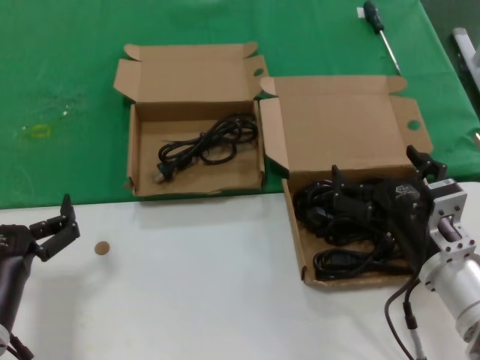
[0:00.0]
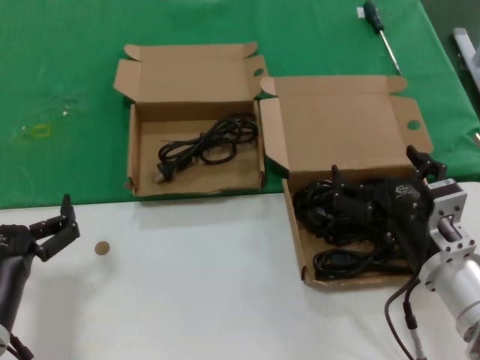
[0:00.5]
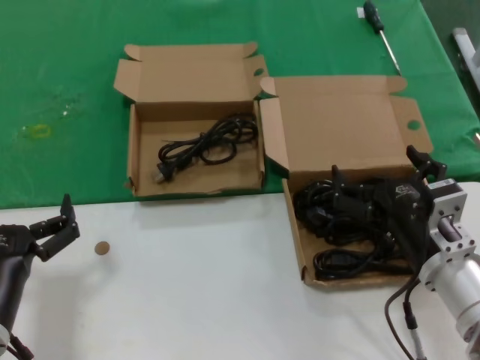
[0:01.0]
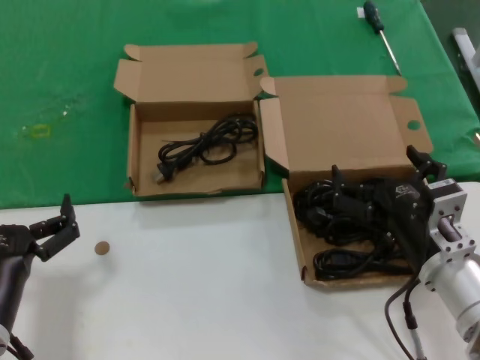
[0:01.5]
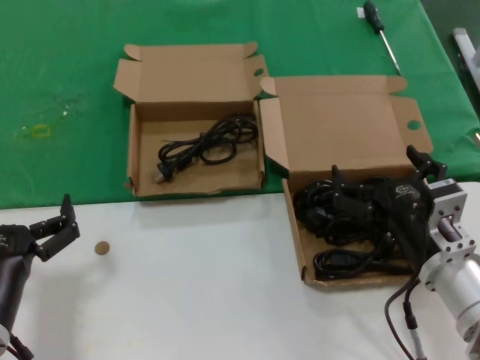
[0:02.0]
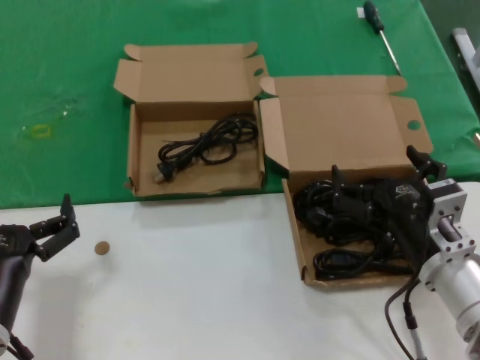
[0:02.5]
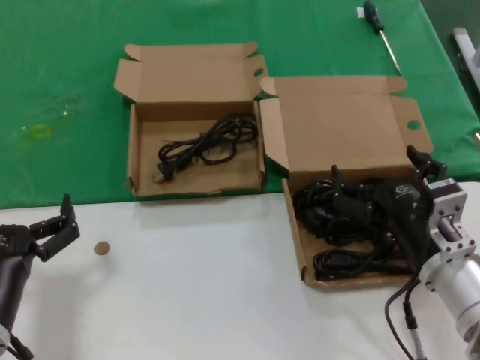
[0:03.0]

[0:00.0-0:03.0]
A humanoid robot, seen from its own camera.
Task of the whole recording: take the parts from the box containing them and put them into an empty box.
0:00.0 to 0:03.0: Neither hand changes place.

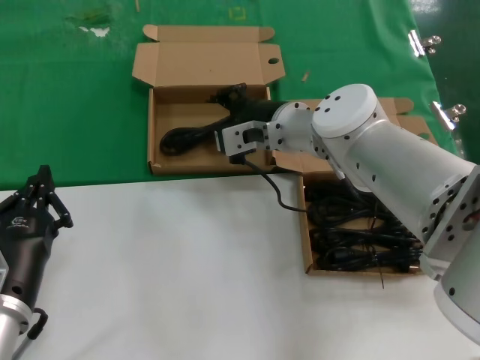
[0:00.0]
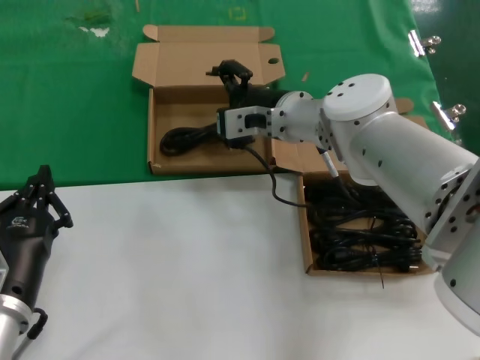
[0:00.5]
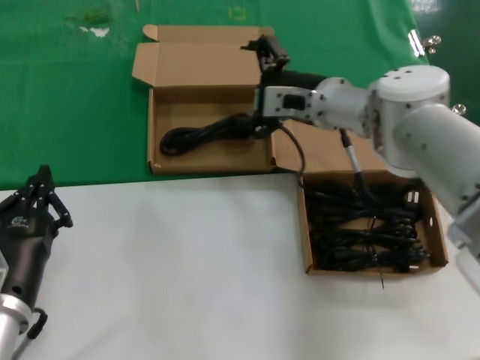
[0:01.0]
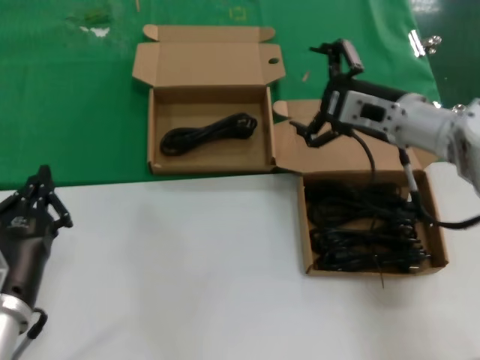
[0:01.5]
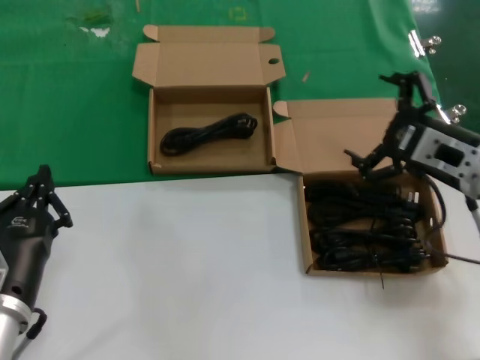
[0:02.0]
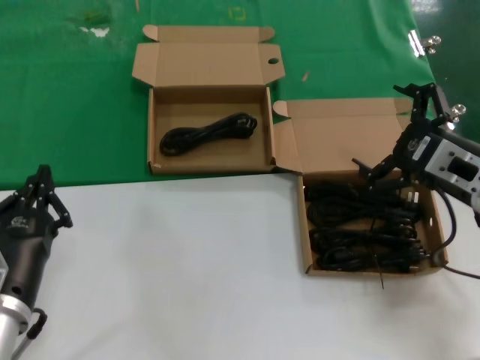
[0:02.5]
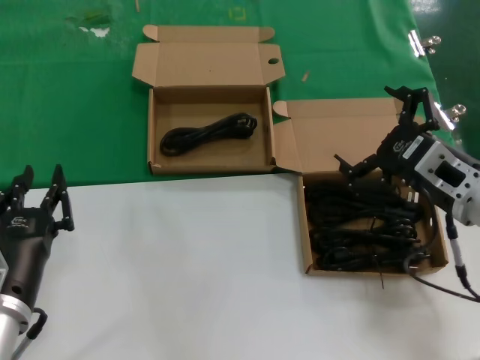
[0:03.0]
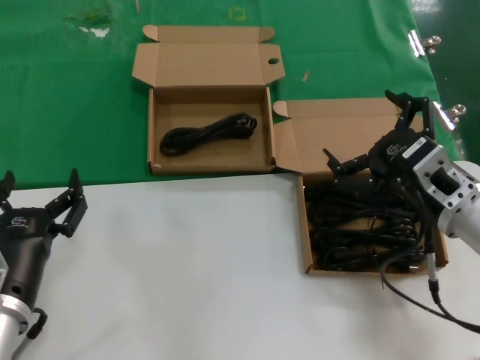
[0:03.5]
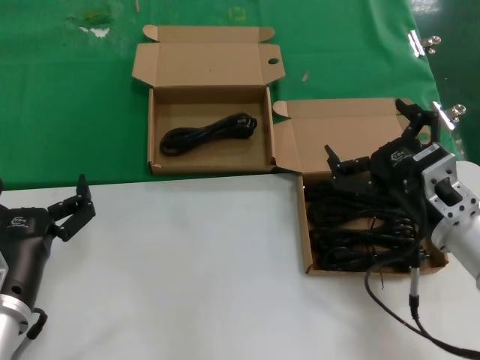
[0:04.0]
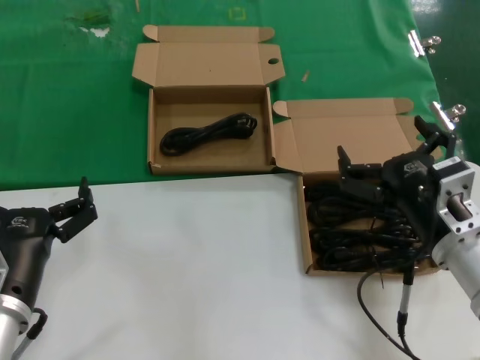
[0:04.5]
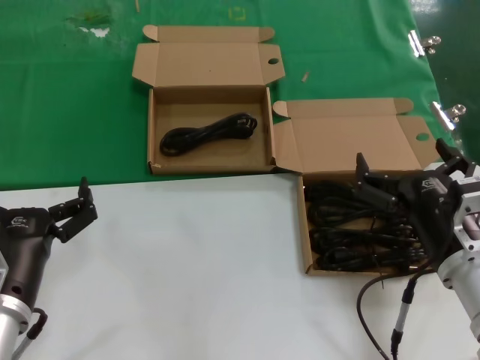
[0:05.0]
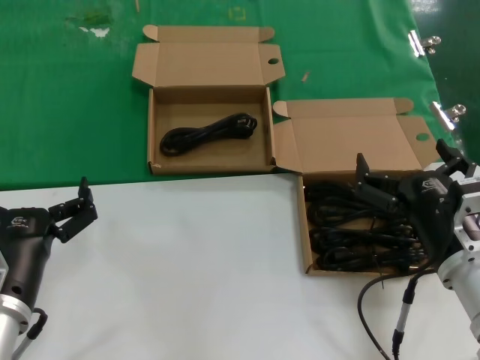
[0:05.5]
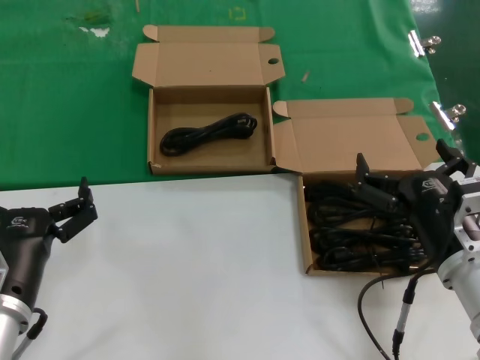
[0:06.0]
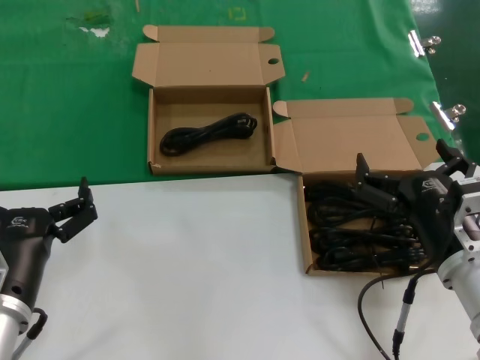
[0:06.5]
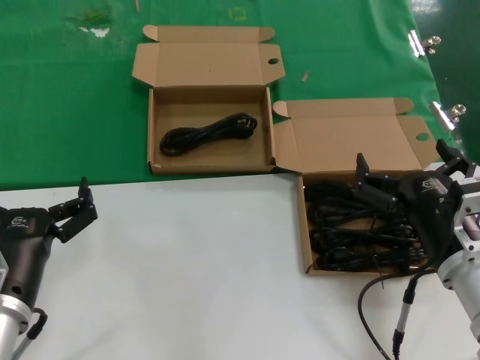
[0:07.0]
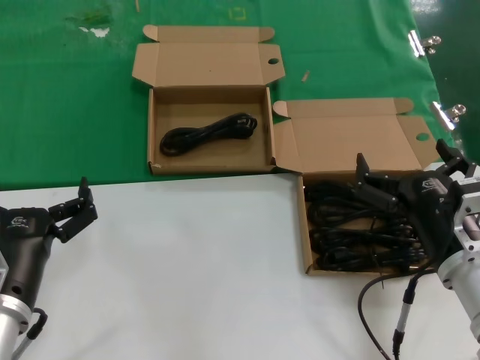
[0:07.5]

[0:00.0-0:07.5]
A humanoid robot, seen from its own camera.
Task of the whole recording: take the parts from the box containing them and put them into an empty box.
0:00.0 to 0:02.0: The right hand travels to the right and backward by approximately 25 cm.
0:02.0 to 0:04.0: The right hand heads backward and downward, covering roughly 10 cm.
0:04.0 to 0:05.5: The right hand shifts by approximately 5 cm.
0:05.5 to 0:07.5: Both hands stay put.
